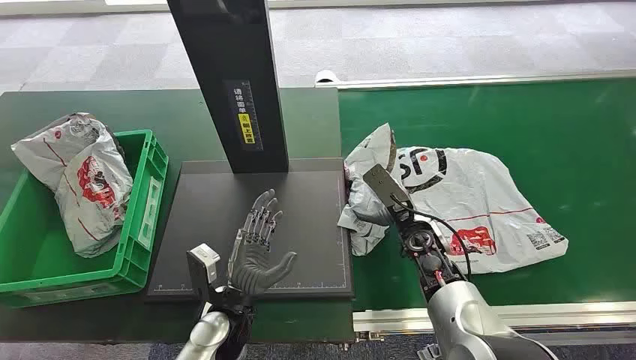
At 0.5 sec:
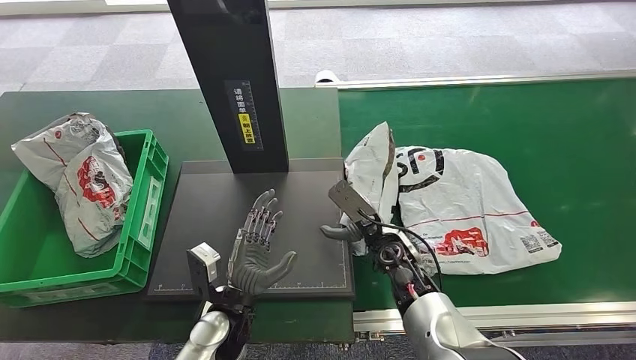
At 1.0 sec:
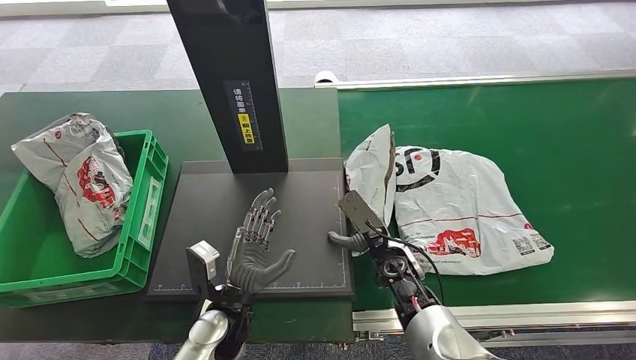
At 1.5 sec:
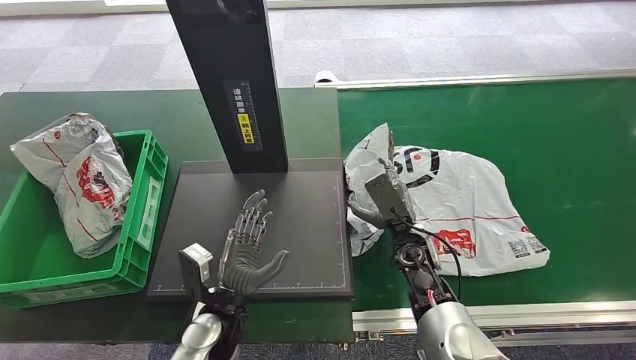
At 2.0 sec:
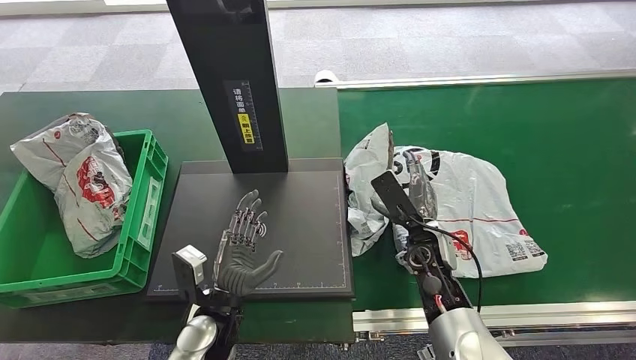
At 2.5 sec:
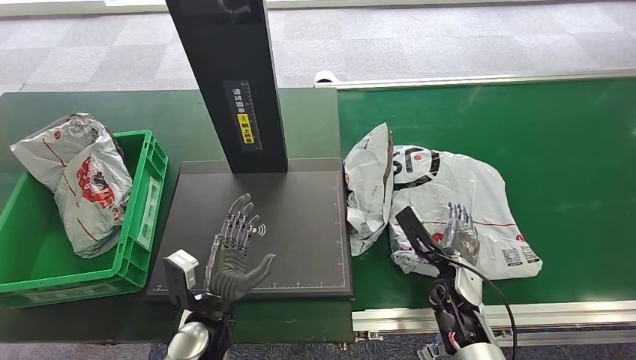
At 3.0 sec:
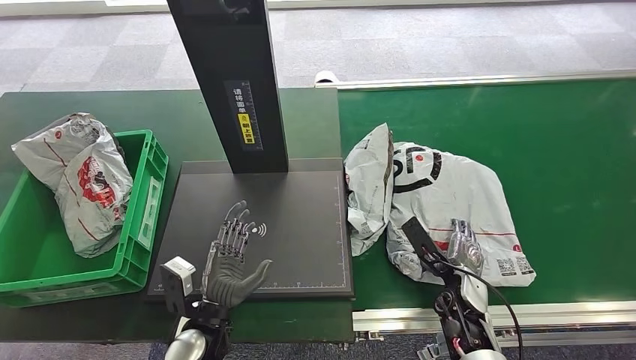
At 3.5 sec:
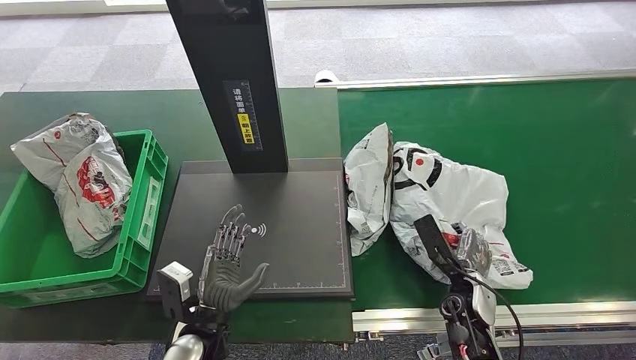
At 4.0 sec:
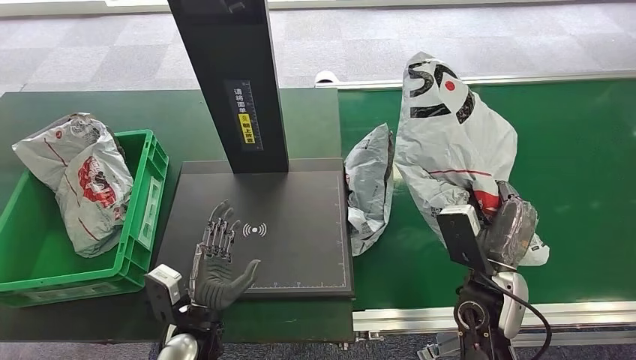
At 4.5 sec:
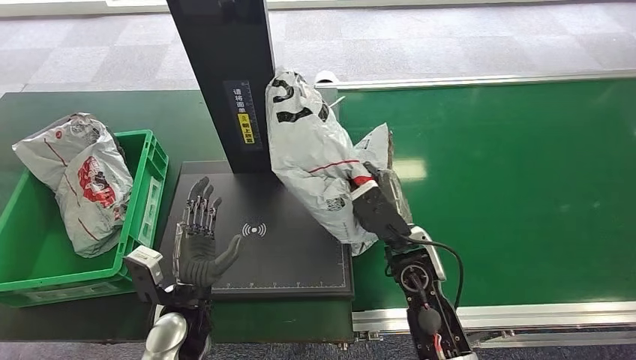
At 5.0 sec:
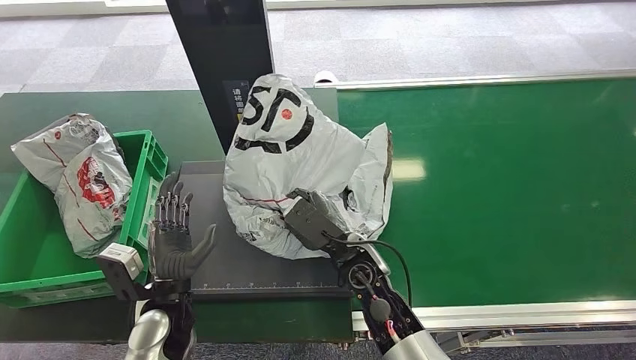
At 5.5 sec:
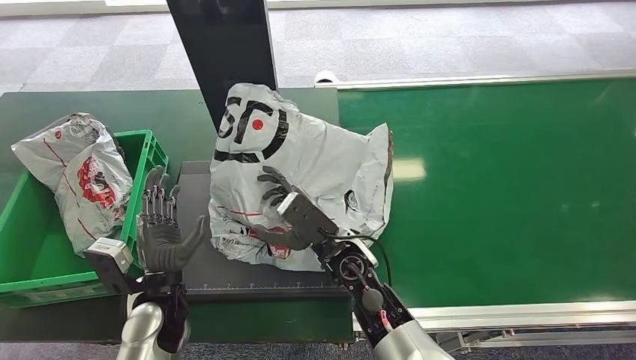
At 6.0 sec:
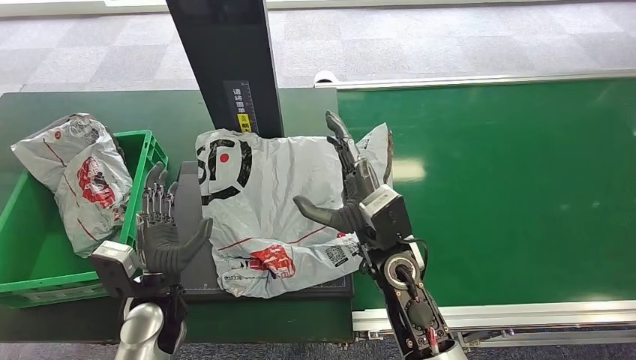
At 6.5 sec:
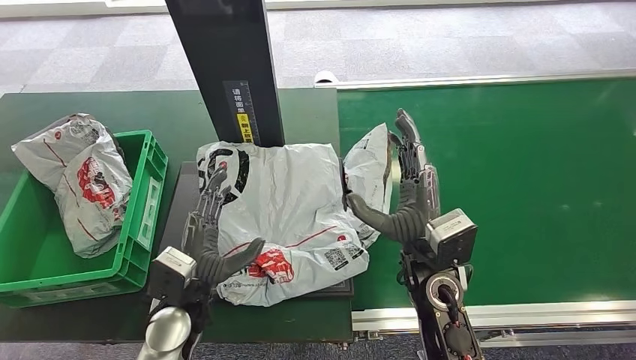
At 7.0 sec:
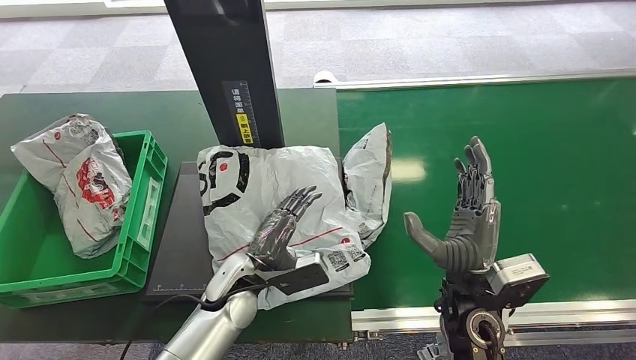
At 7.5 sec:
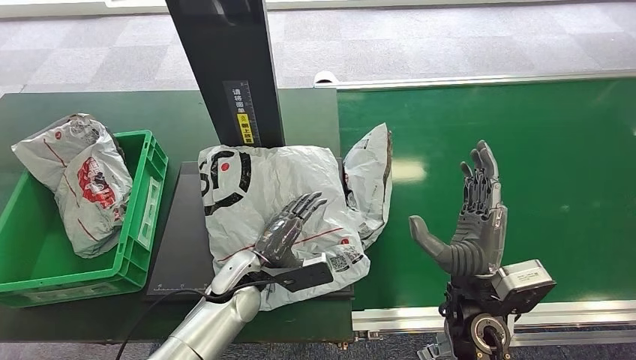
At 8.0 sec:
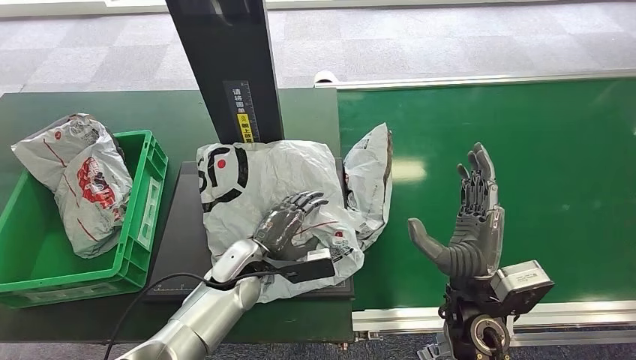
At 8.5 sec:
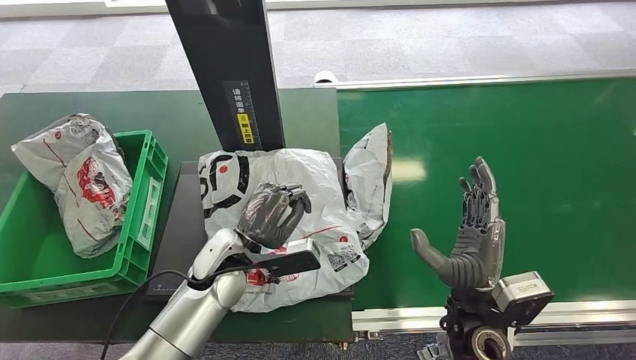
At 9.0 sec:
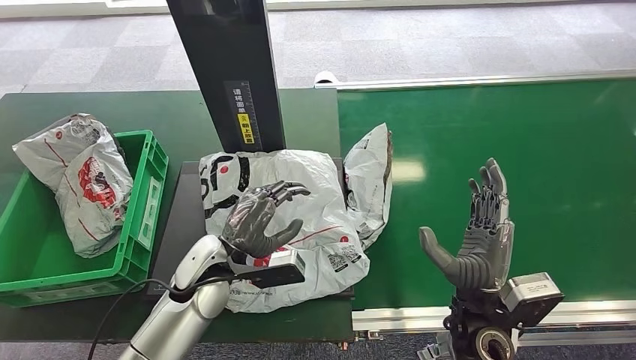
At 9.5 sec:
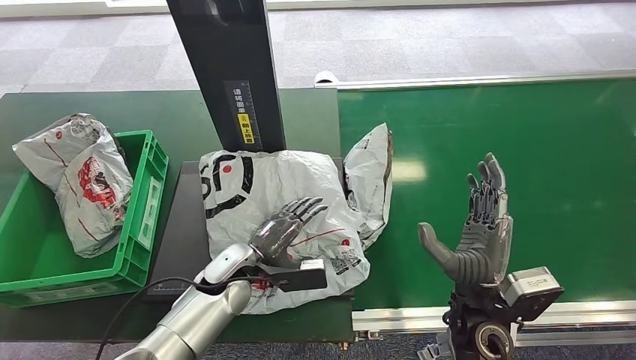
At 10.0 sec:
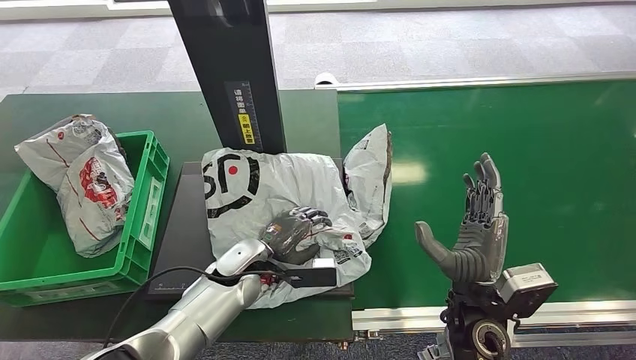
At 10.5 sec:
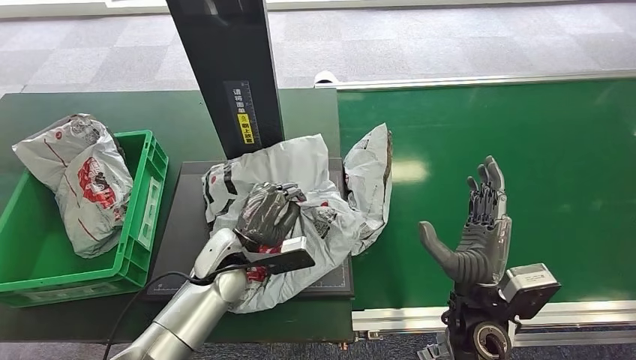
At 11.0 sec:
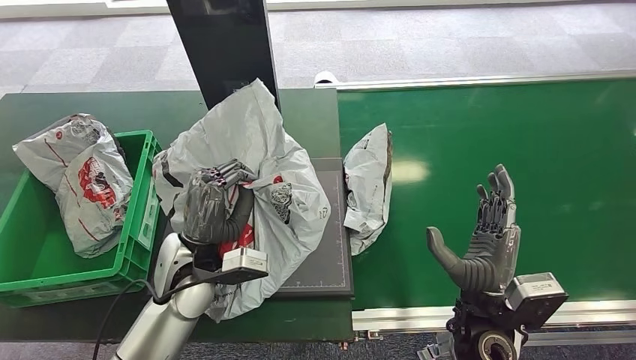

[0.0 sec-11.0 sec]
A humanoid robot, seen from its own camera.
Step, 0.0 sec to 4.0 sec: Pick up the package from the conveyor belt.
Step, 5.5 sec to 6.5 sec: Place the package onto the inbound machine.
2.0 sec to 3.5 sec: The right hand moves backward, to the right and downward, some 10 cm.
7.5 sec to 9.0 sec: The left hand shifts roughly 5 cm upward.

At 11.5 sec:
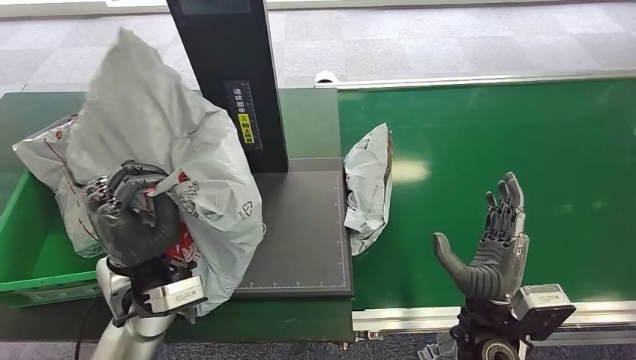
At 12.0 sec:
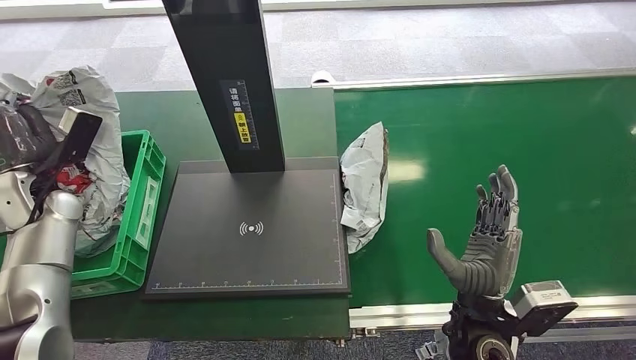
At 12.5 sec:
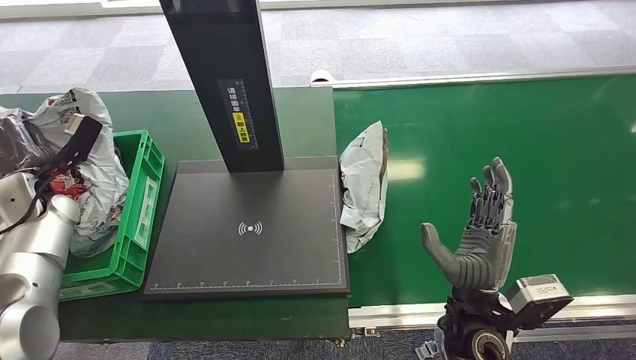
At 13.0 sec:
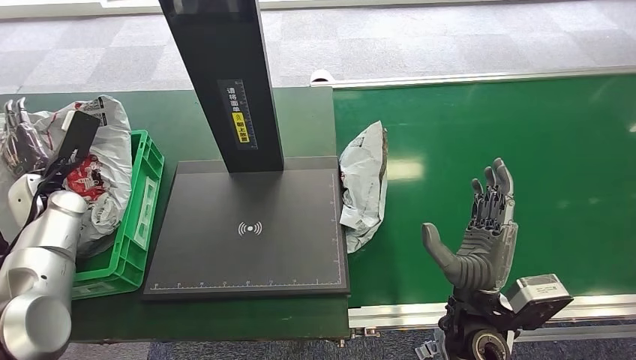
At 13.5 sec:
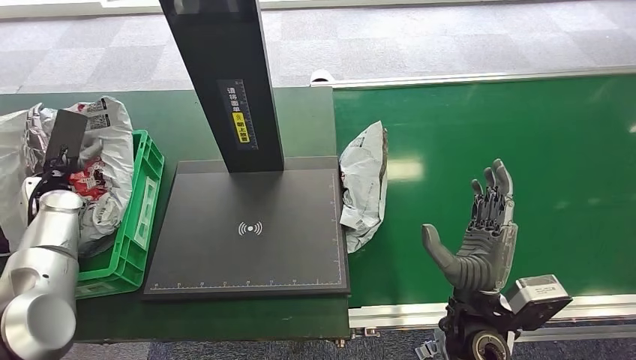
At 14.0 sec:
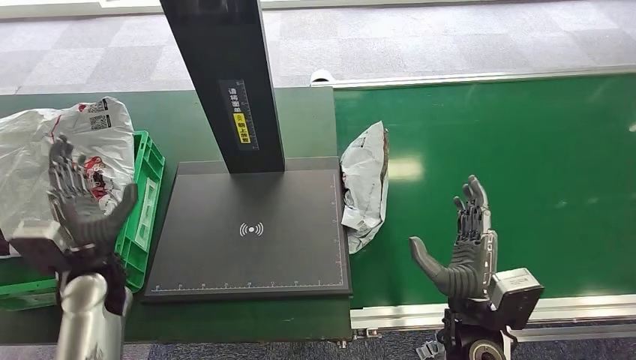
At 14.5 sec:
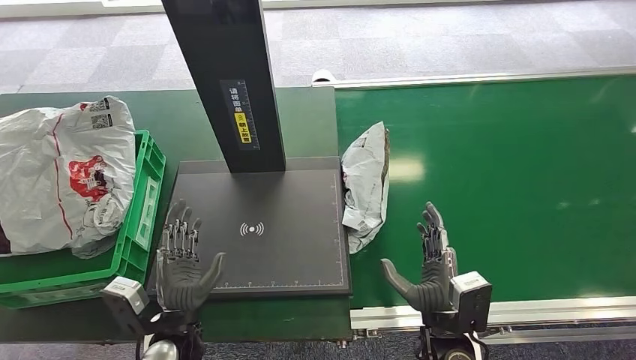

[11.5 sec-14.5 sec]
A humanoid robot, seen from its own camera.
Step, 12.5 sec to 14.5 sec: Place the package into the parcel locker.
13.0 sec to 14.5 sec: The left hand travels to the right and backward by some 35 cm. Meanwhile the right hand travels downward by approximately 5 cm.
